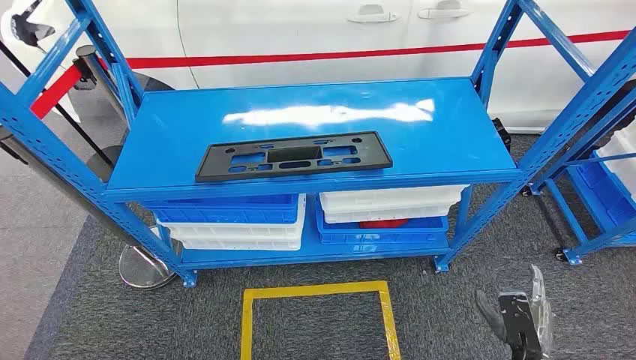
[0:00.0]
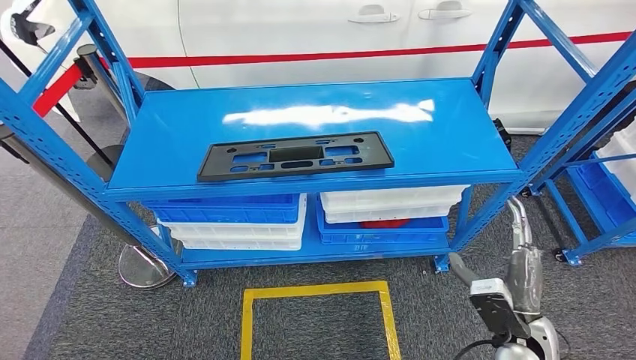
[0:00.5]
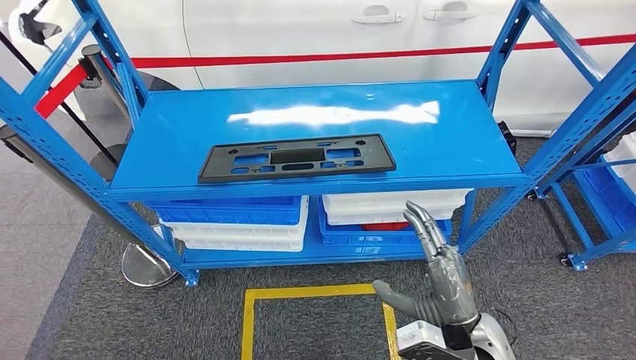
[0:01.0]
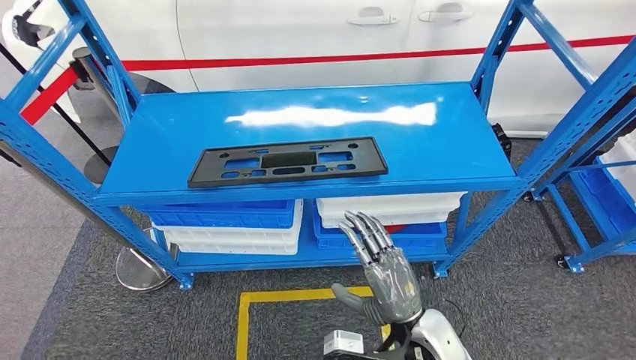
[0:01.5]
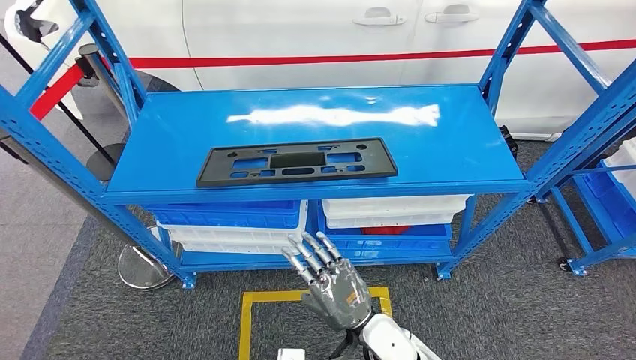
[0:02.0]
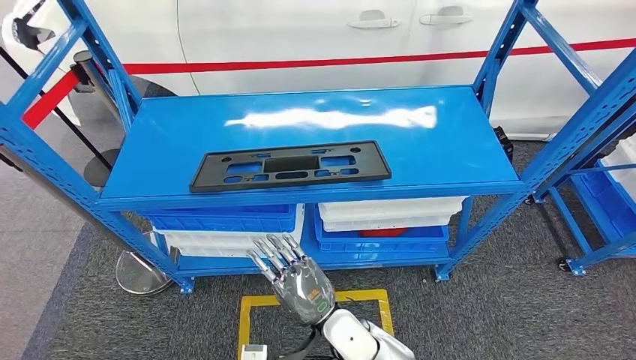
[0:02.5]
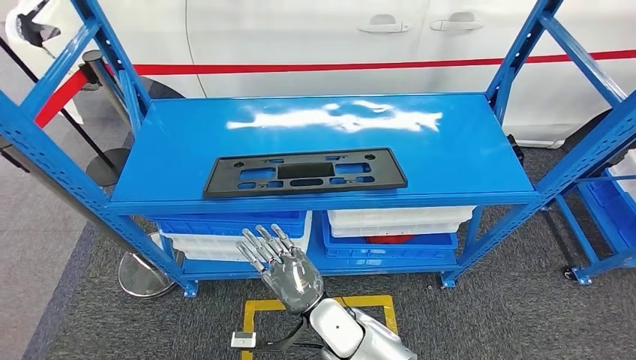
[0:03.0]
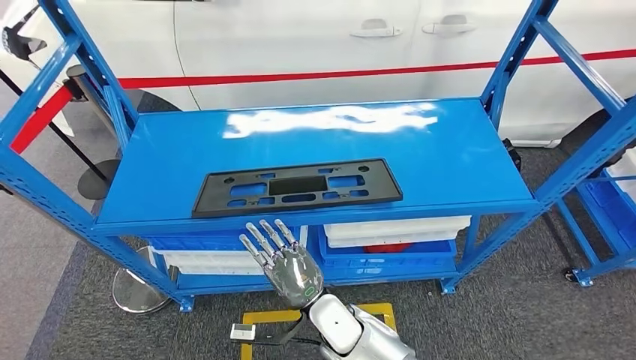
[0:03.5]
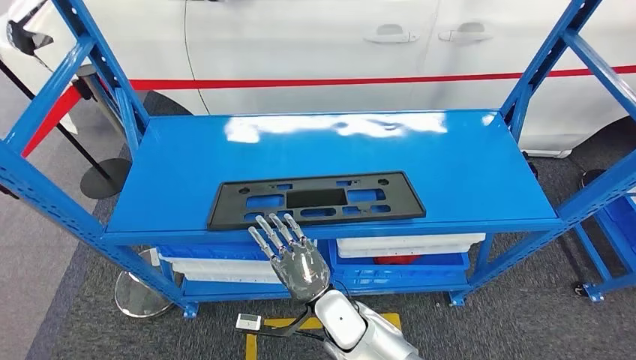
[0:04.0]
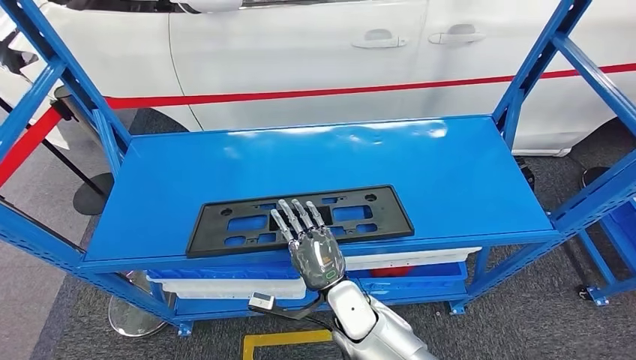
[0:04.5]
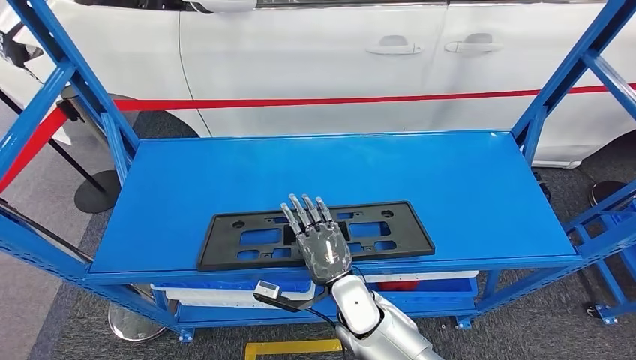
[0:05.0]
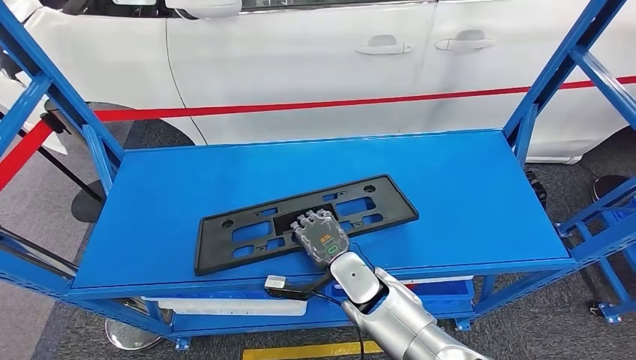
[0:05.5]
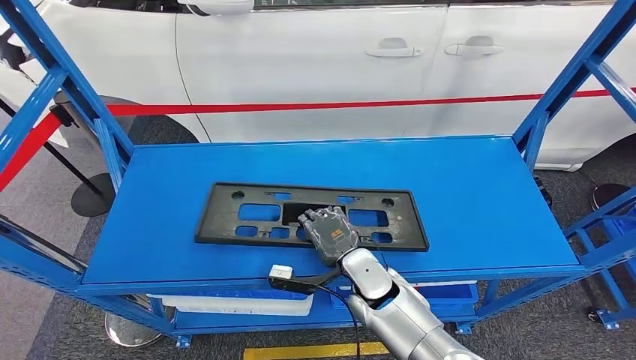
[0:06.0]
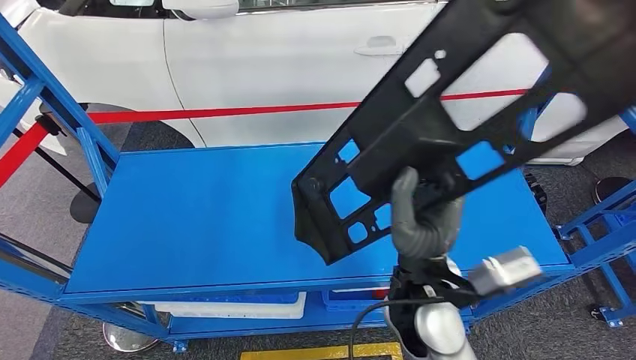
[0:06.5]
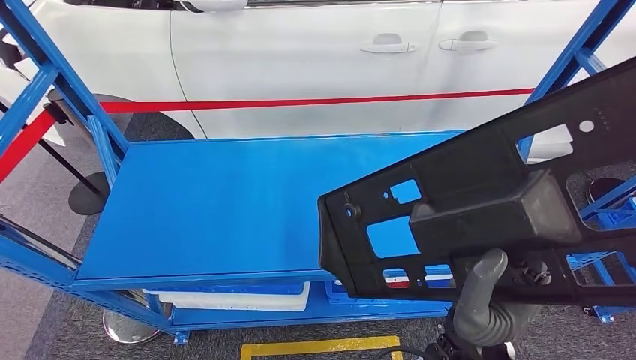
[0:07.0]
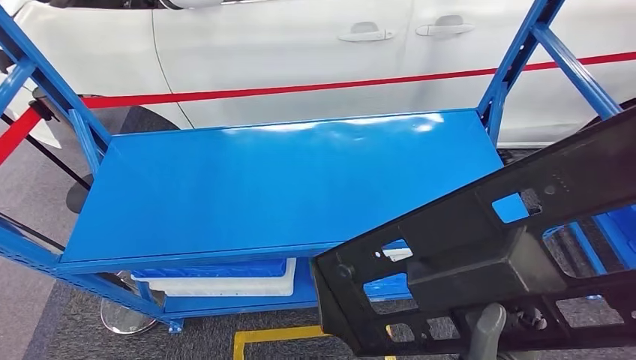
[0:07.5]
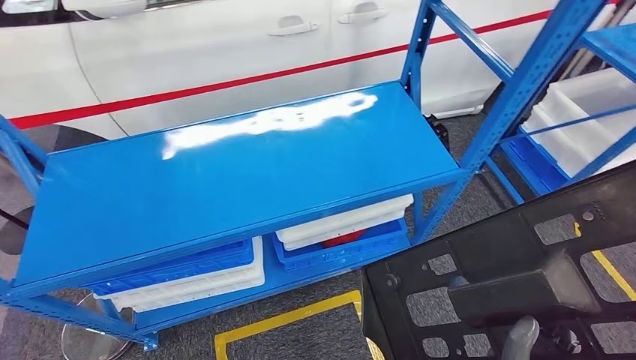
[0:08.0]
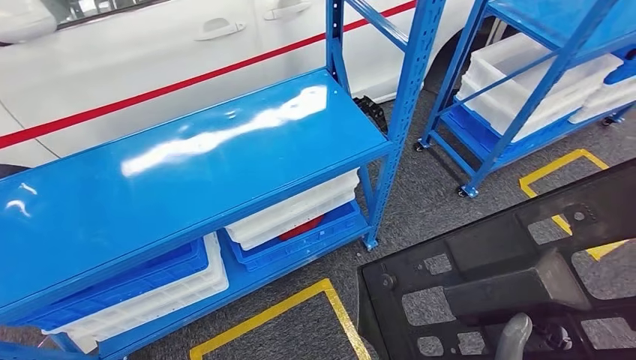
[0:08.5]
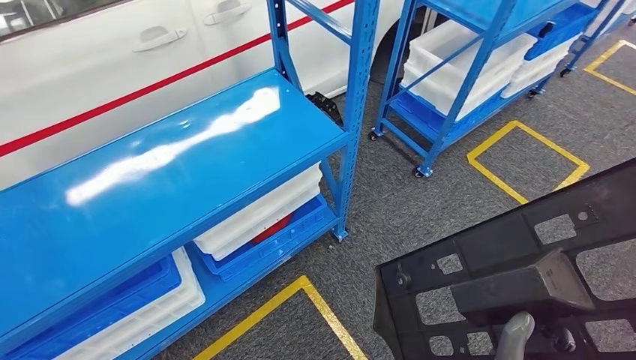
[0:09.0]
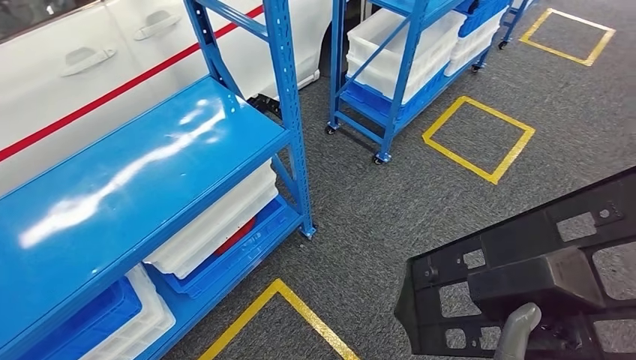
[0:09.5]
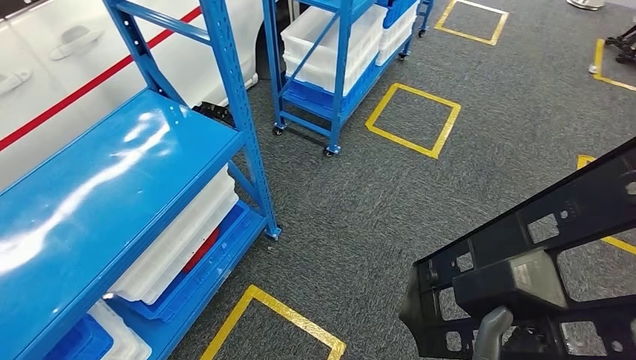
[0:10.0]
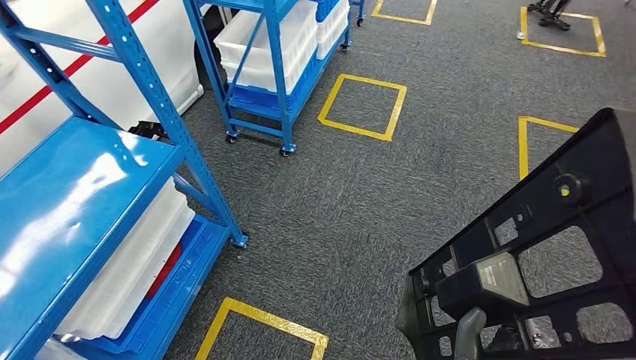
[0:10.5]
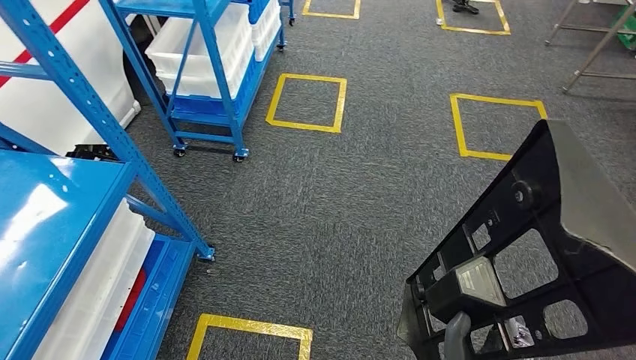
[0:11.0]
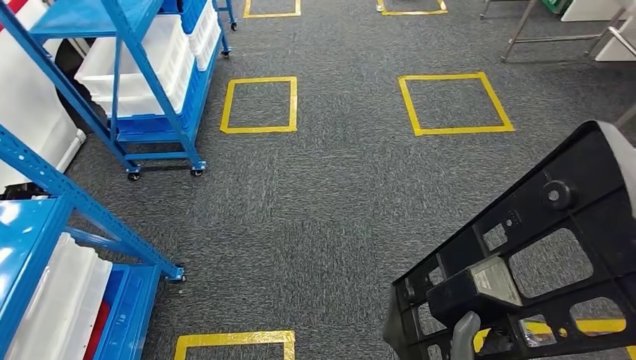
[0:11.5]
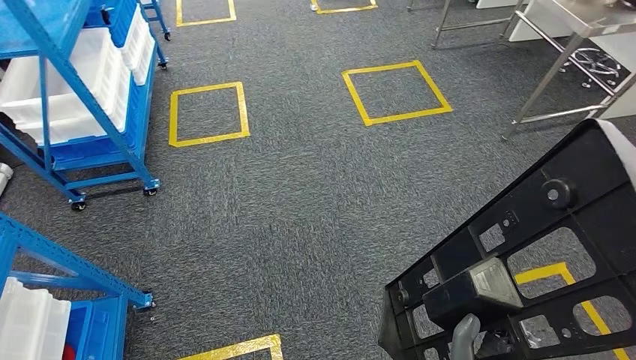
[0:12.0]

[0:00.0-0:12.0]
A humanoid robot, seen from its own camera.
Step, 0:00.0 to 0:07.5: Pick up the large material from the shelf.

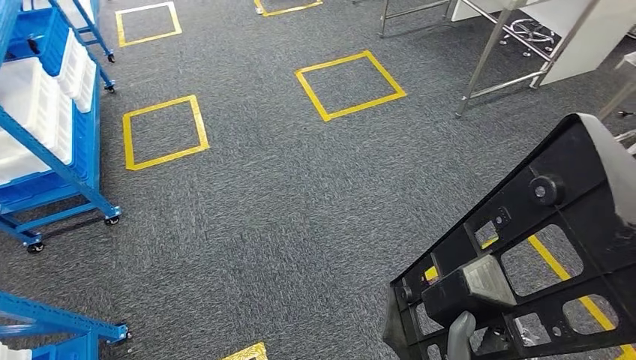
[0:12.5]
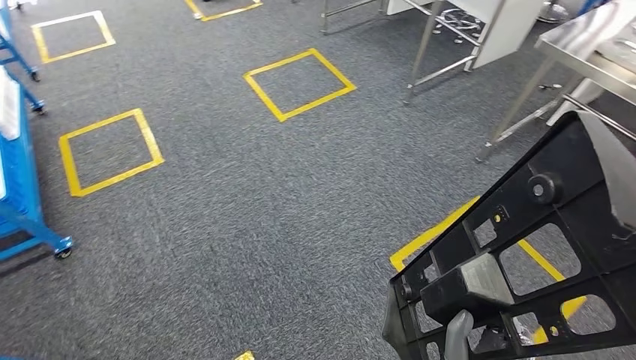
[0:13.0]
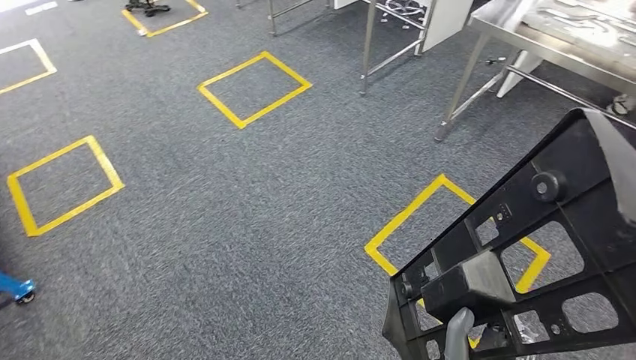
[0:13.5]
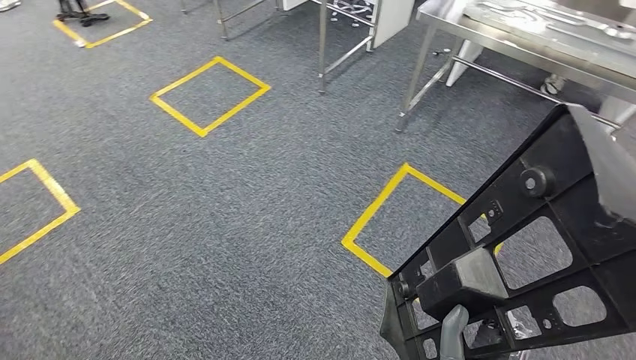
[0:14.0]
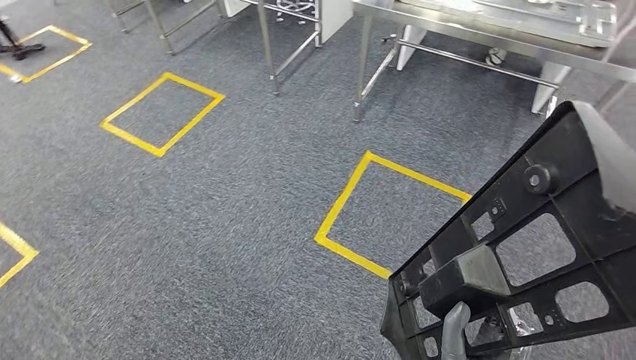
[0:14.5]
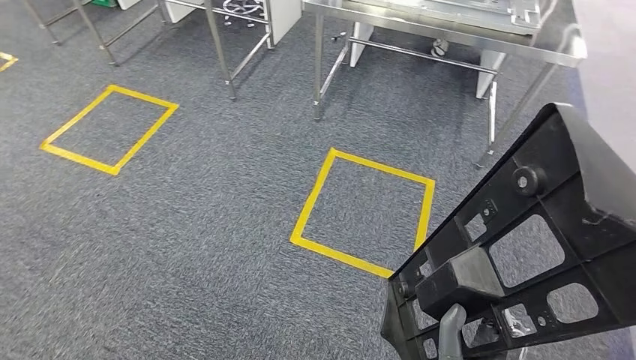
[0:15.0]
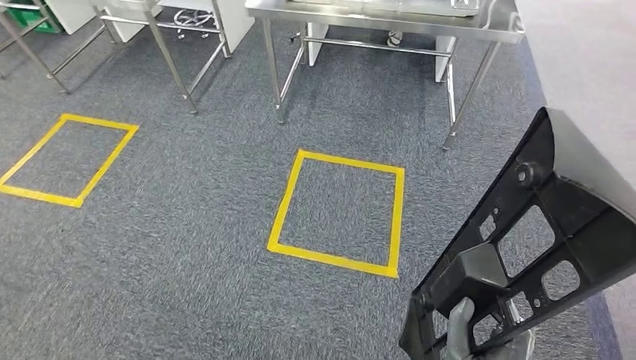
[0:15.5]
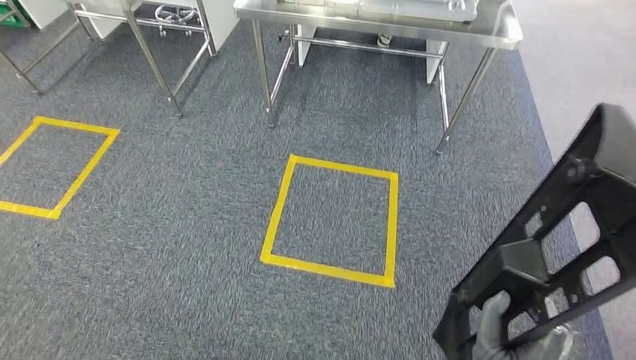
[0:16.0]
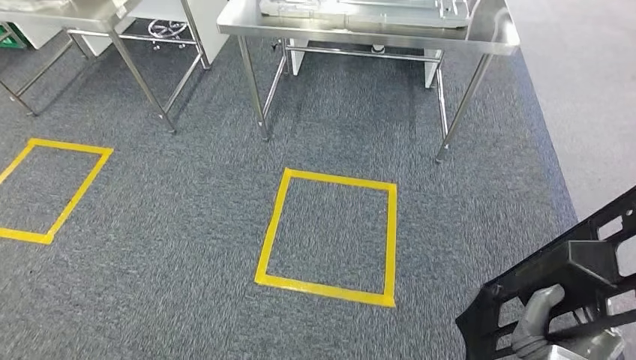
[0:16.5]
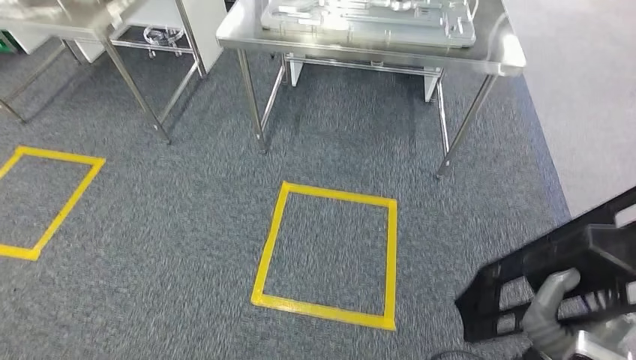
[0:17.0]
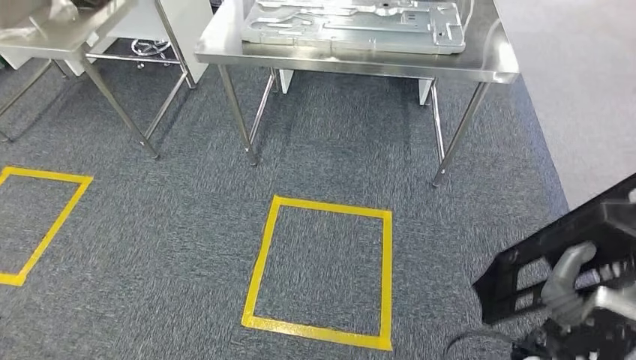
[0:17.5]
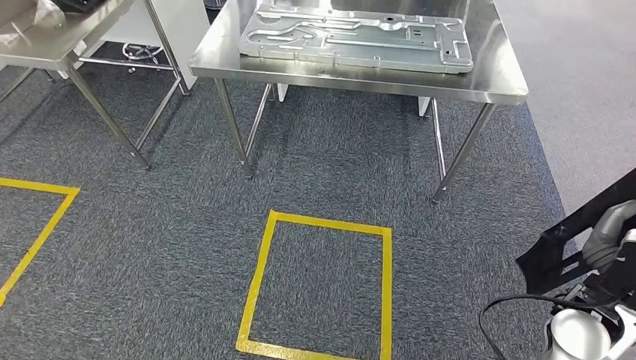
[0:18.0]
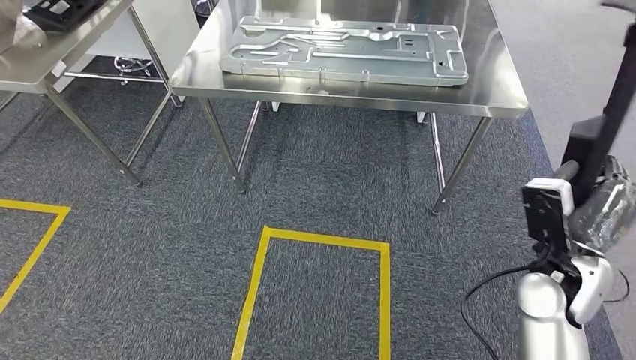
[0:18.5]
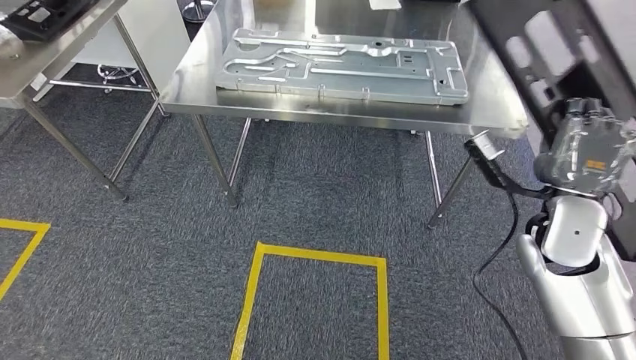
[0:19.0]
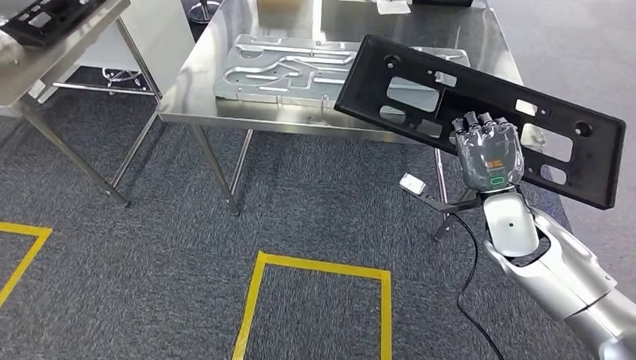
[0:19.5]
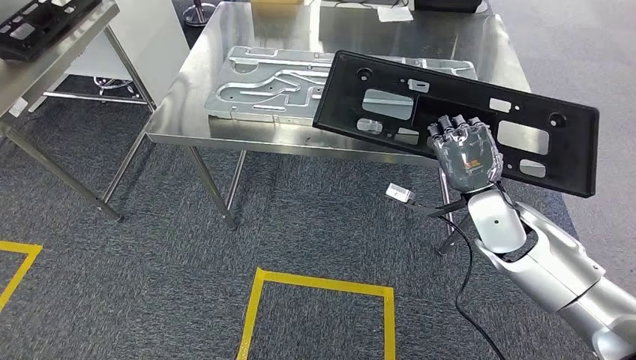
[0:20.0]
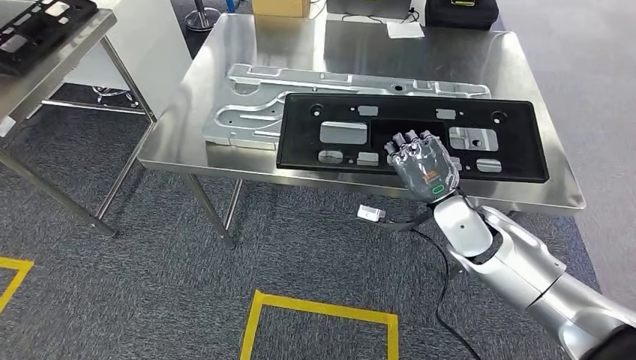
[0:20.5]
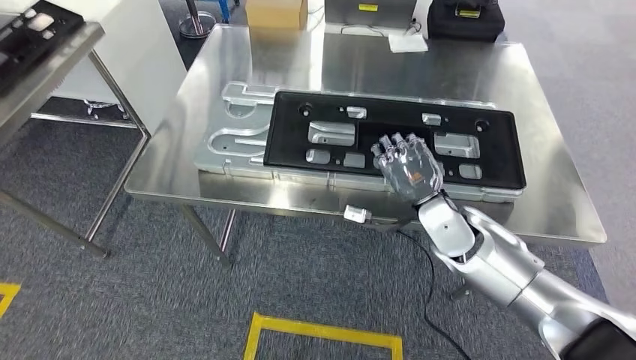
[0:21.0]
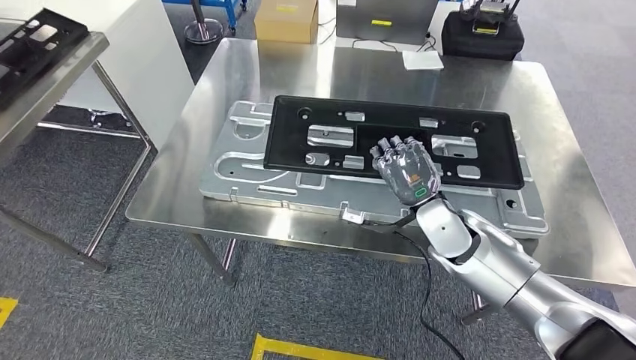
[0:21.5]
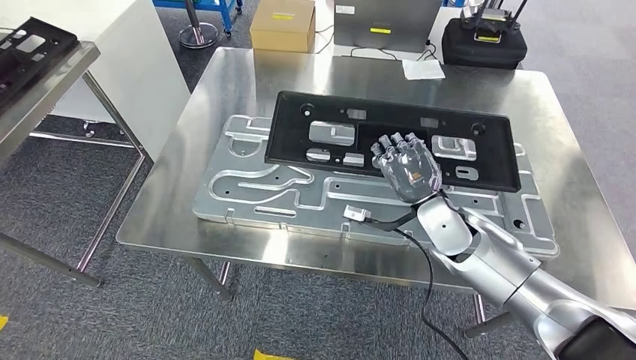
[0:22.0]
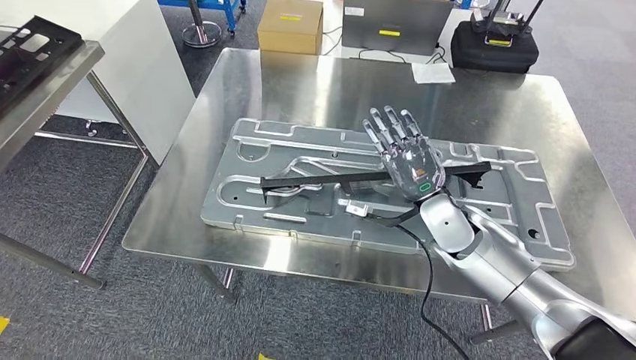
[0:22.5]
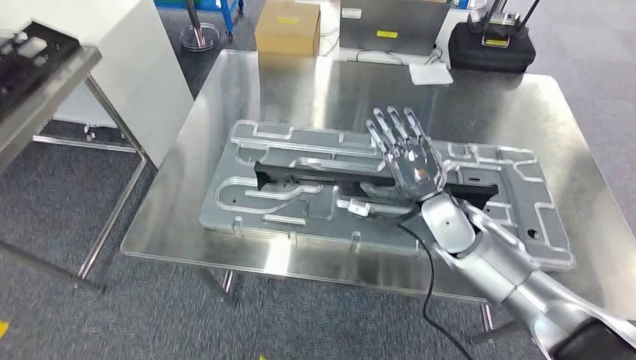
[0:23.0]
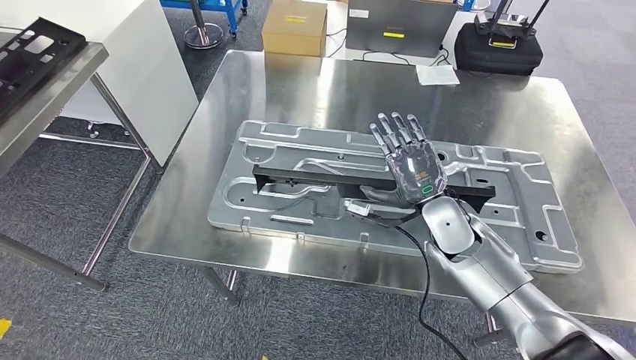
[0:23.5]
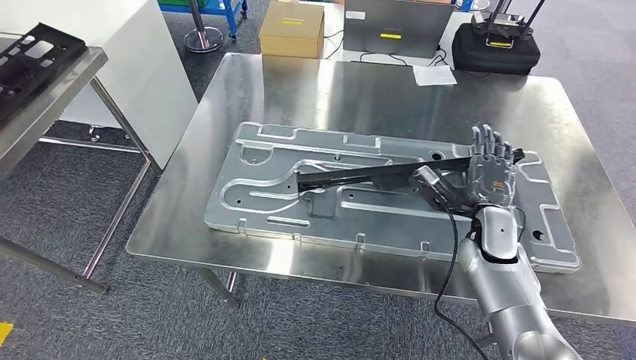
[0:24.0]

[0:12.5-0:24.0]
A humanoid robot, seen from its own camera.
Step, 0:12.5 to 0:20.5: Move the large material to the workbench.
